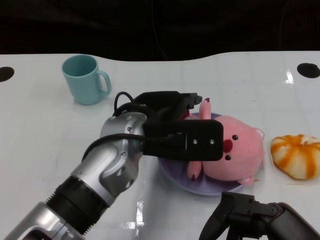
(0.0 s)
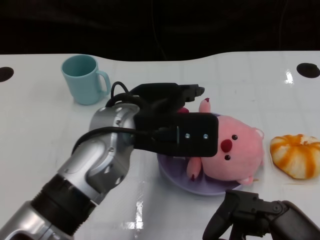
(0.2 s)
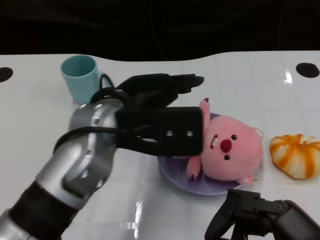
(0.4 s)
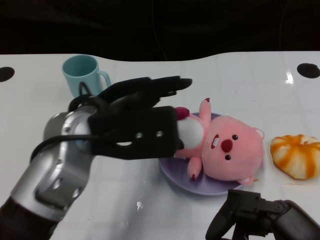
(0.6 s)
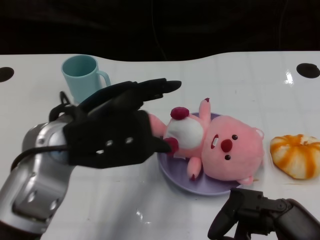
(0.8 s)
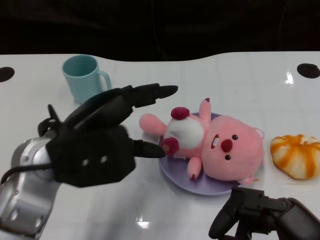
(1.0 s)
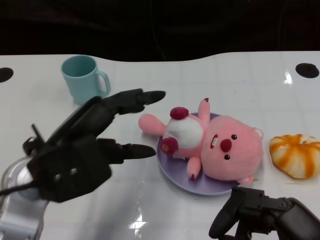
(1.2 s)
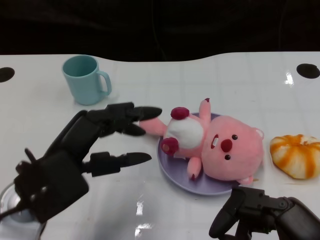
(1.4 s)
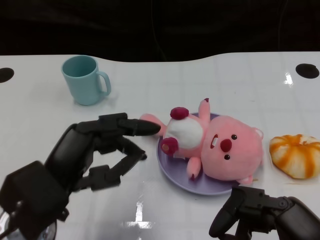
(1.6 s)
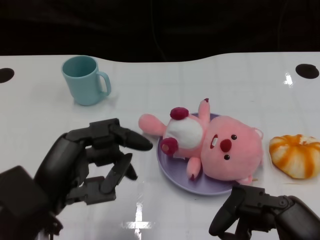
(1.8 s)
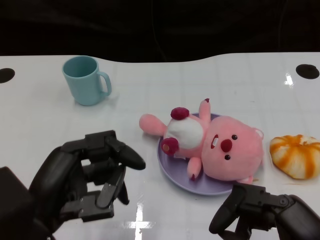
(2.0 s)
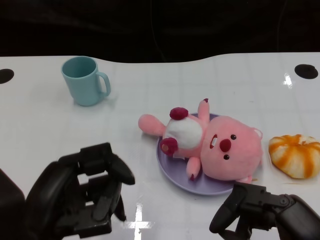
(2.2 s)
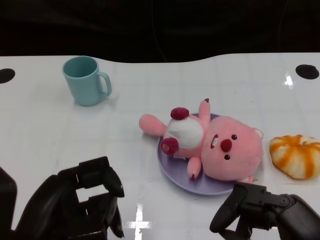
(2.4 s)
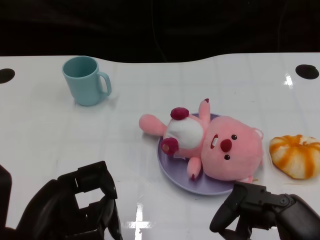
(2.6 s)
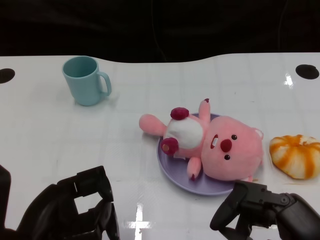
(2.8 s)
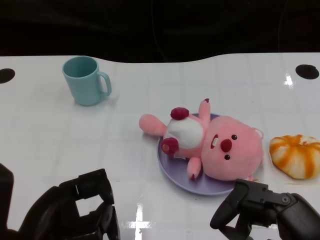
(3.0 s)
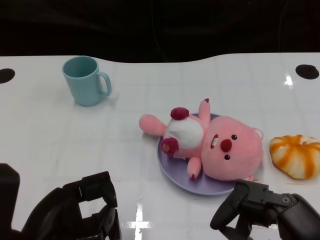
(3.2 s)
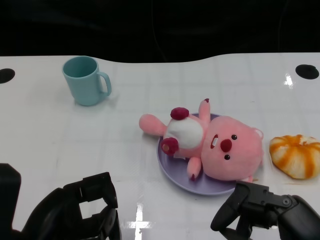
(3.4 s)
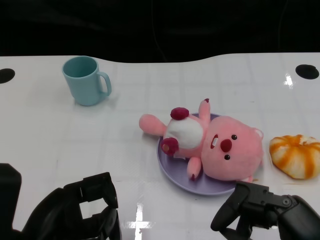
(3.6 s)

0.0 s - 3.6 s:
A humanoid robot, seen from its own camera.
Task of the whole recording: Pick up the doll on one side of the plate and place it into the plate.
0.0 s - 1.8 s: The left hand travels to the left and backward by approximately 15 cm.

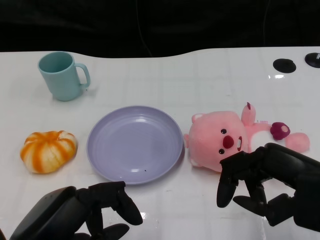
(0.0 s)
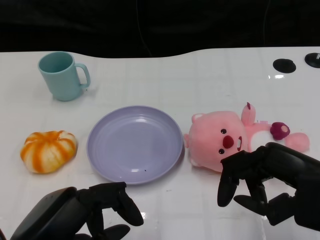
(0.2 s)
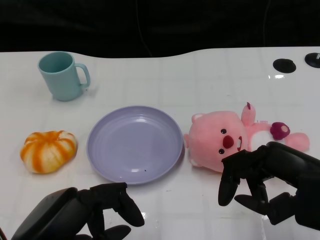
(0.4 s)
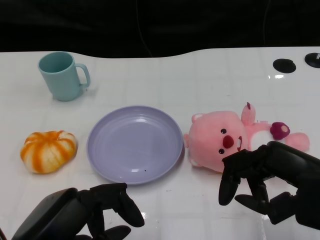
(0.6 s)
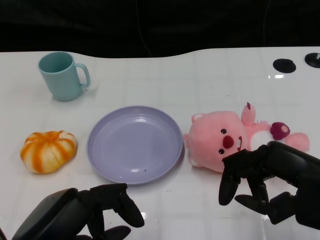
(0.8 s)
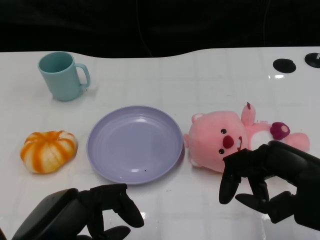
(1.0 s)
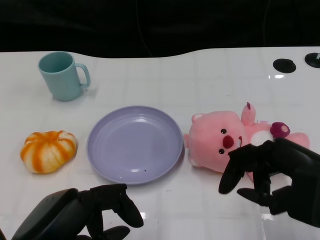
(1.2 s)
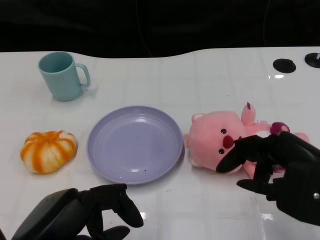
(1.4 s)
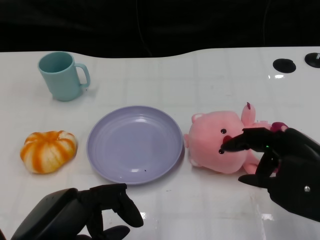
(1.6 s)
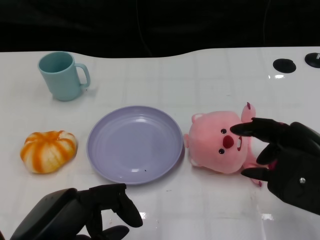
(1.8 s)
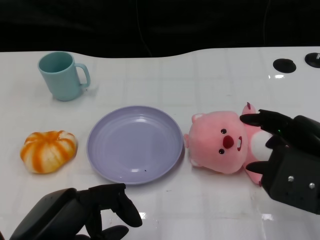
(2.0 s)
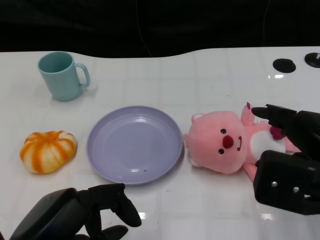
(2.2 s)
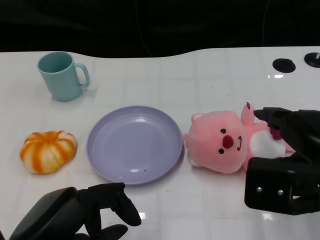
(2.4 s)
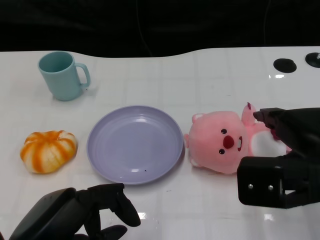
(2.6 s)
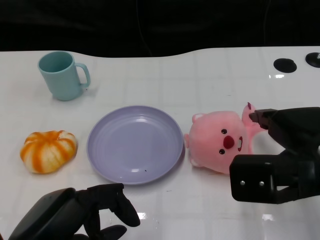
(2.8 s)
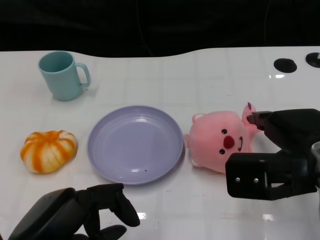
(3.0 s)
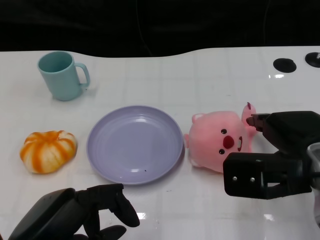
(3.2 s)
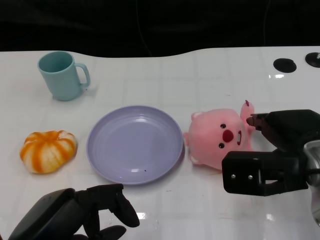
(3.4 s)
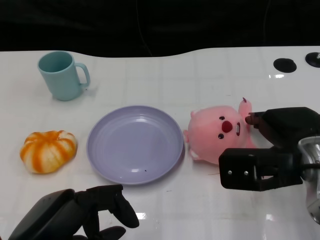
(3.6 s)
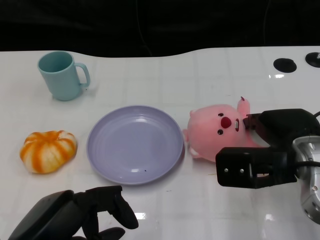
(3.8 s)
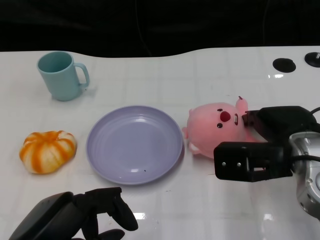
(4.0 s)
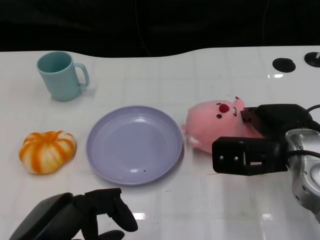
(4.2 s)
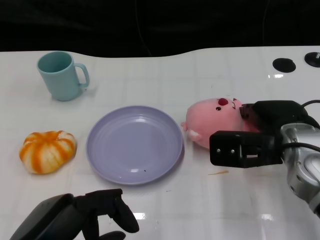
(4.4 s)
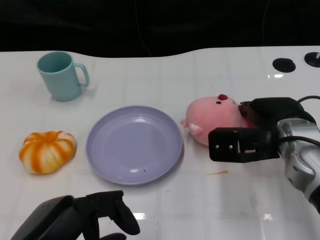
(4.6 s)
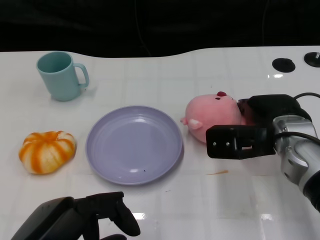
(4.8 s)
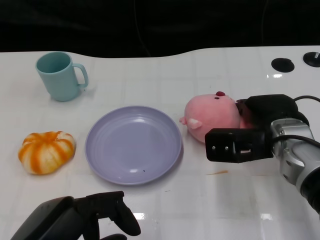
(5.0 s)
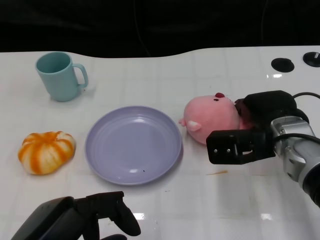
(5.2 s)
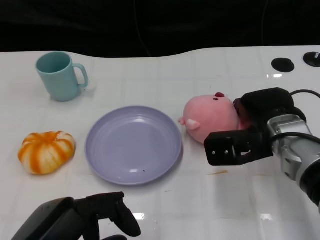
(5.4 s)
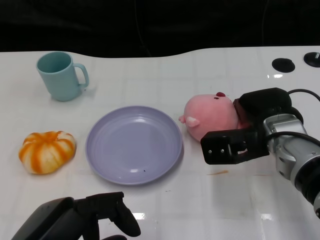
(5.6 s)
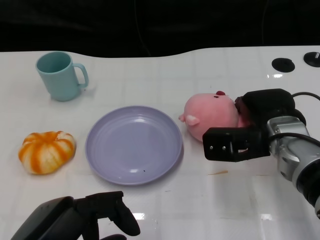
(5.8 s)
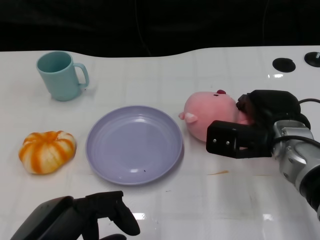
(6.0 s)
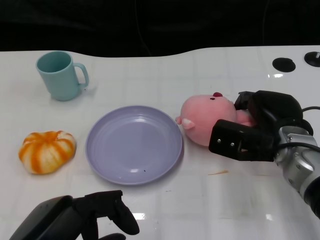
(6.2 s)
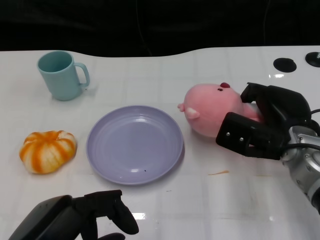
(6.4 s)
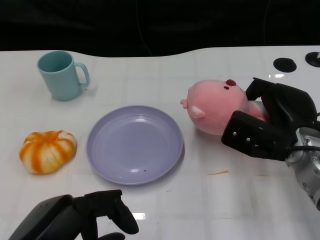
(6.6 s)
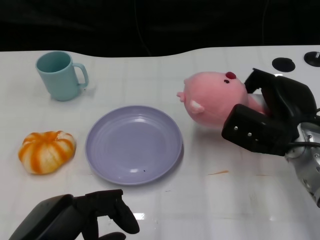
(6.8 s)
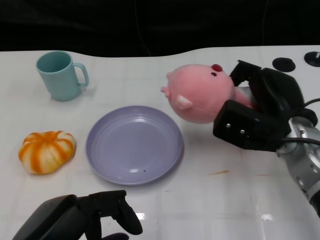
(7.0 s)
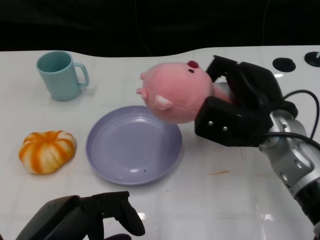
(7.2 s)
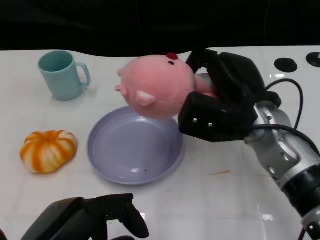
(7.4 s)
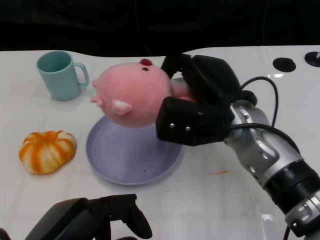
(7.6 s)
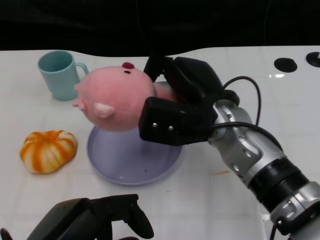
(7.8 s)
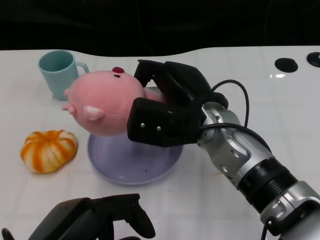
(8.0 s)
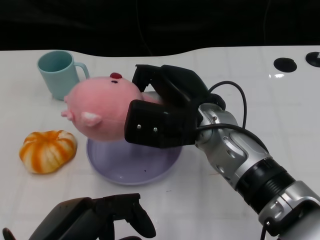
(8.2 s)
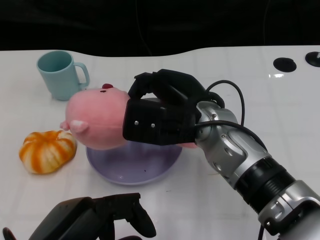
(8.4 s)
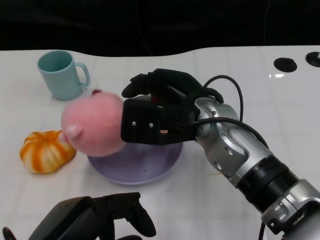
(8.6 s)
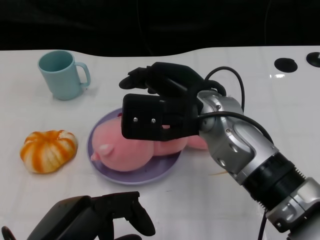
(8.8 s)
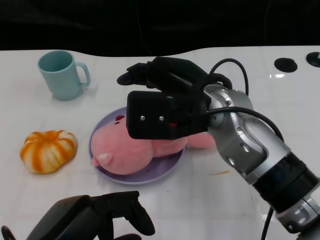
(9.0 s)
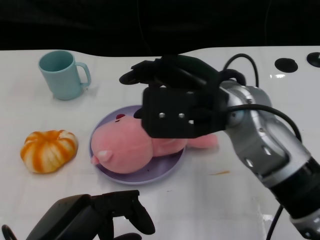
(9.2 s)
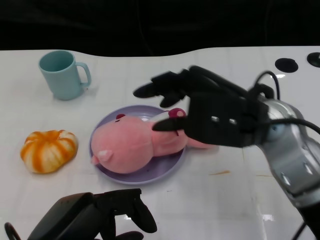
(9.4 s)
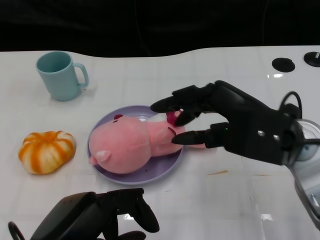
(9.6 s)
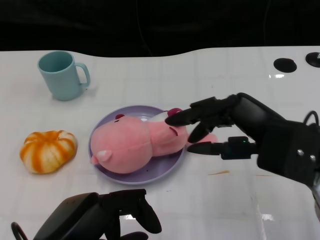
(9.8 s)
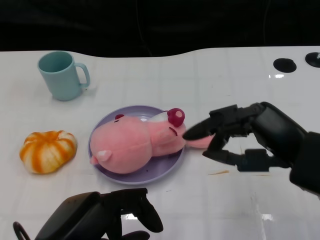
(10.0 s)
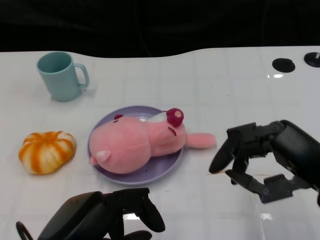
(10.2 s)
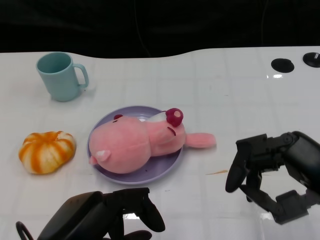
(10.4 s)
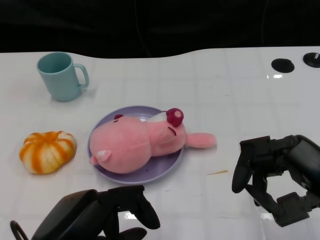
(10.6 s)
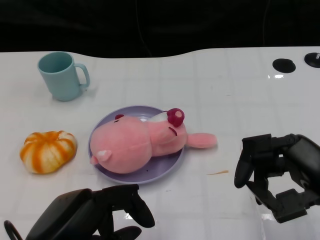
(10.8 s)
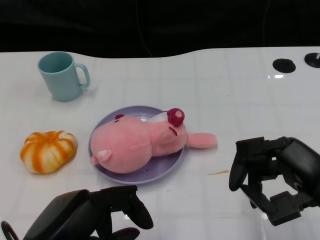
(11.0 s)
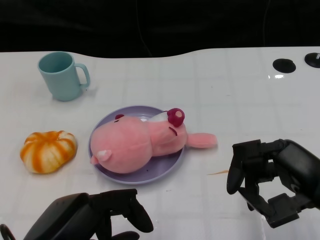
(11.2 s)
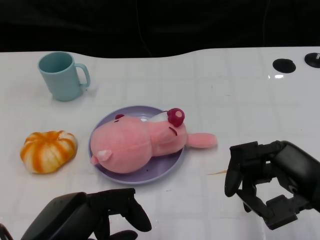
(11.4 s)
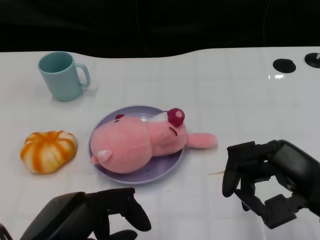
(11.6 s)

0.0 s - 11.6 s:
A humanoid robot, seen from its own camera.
Task of the whole recording: Pick up the doll on the other side of the plate and place it into the plate.
Step, 1.0 s - 7.2 s: Grasp the pink doll with the right gripper.
Step, 7.4 s - 9.2 s: Place the pink doll into the plate with the right gripper.
2.8 s - 4.4 s: The right hand is displaced forward and downward by roughly 10 cm.
4.4 s - 5.8 s: There are only small adjustments of the hands.
7.2 s - 8.8 s: The right hand is displaced to the left by approximately 10 cm.
8.8 s - 10.2 s: The right hand is displaced to the right and backward by about 20 cm.
10.2 s - 11.6 s: The hands make only small movements.

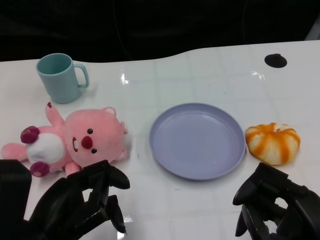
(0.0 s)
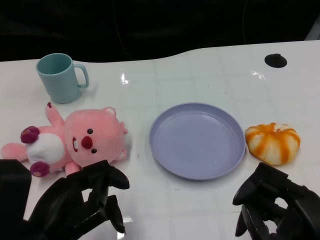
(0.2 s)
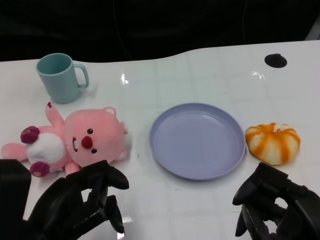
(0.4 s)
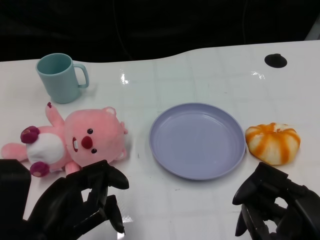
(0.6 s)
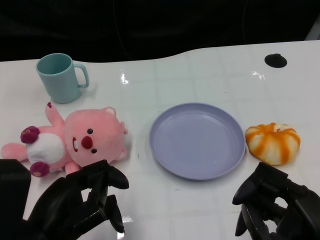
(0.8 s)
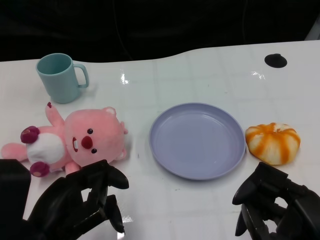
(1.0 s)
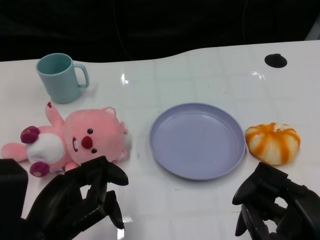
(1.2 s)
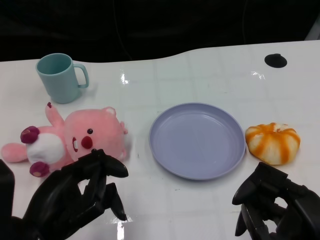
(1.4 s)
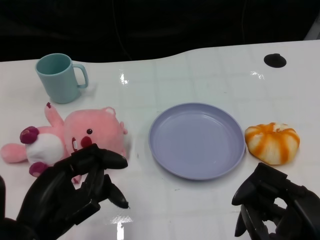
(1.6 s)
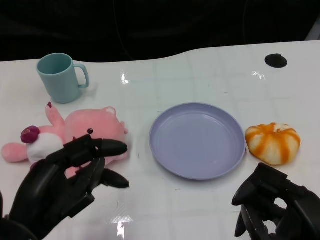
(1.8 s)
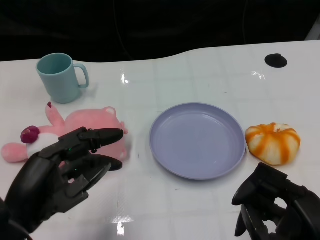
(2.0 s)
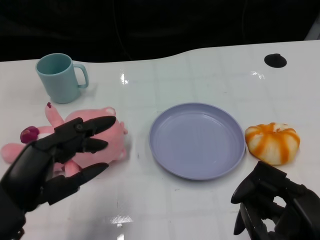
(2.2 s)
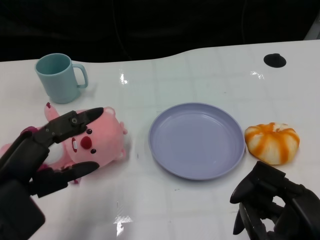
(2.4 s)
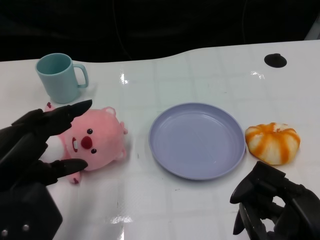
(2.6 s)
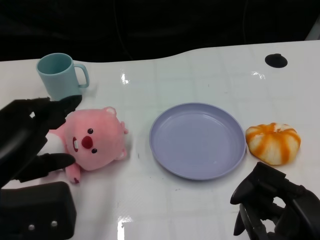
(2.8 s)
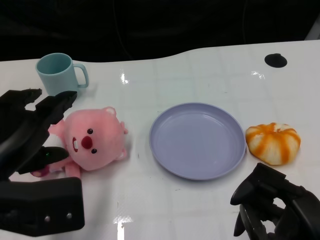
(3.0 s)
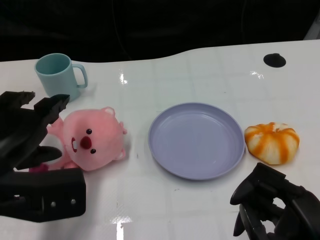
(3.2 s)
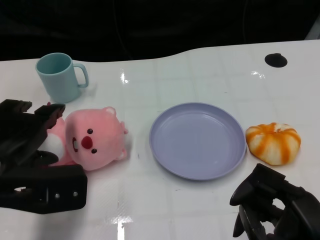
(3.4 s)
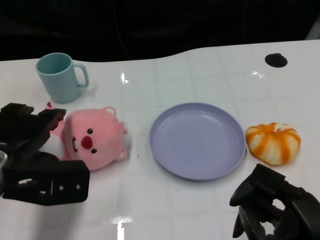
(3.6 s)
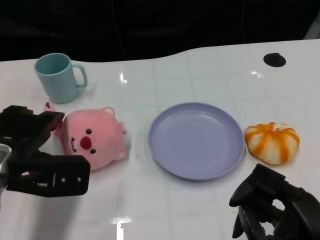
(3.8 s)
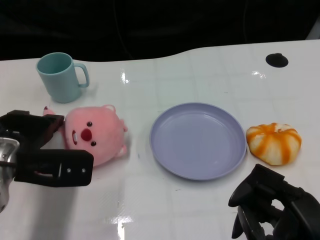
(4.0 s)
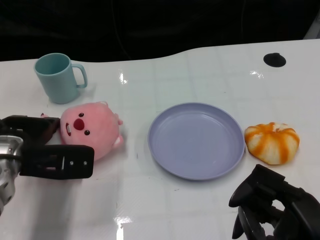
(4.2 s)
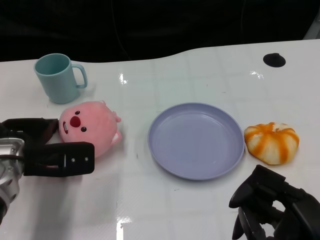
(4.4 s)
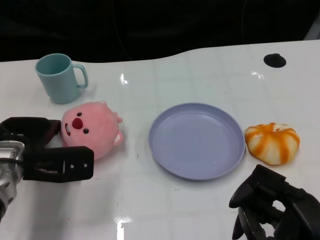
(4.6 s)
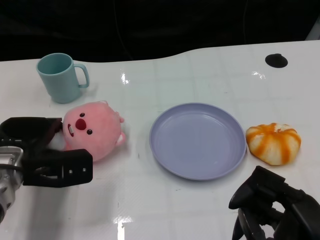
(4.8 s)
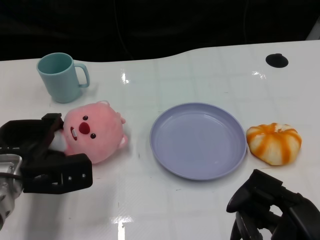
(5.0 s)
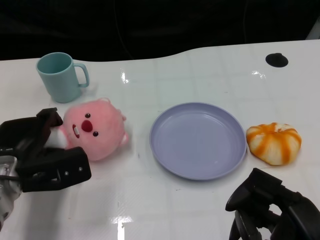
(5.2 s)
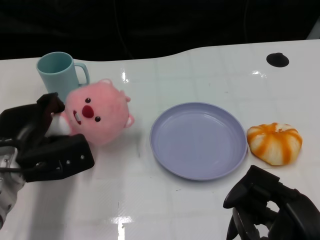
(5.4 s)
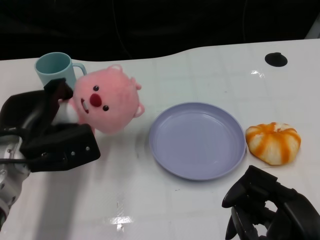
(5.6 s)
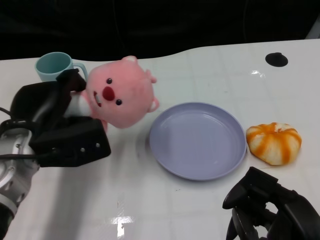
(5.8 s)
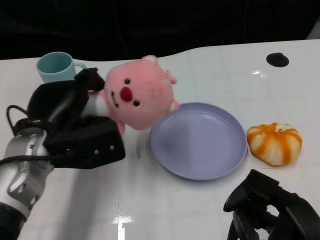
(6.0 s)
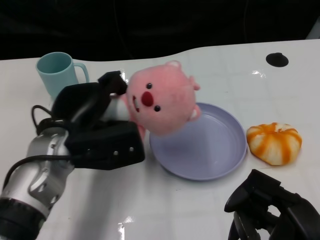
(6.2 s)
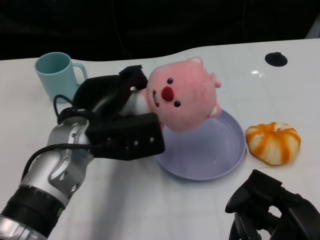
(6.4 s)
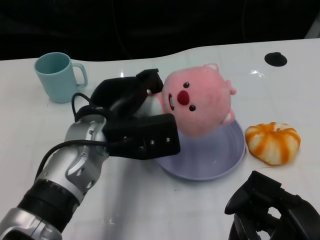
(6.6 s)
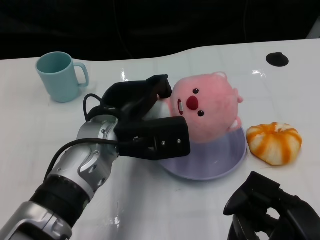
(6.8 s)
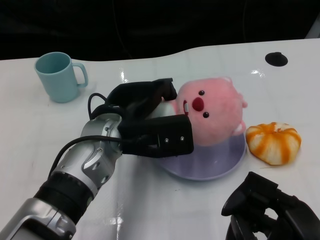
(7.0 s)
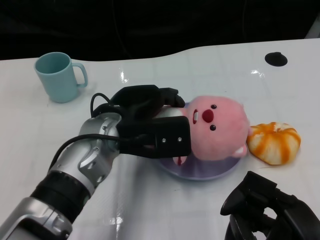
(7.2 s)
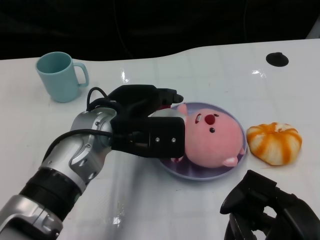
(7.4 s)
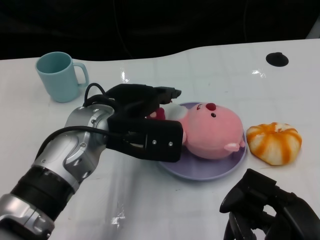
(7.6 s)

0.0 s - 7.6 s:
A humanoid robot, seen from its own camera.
Task of the whole recording: Pick up the doll on one side of the plate and place it into the plate.
Step, 1.4 s - 5.2 s: Grasp the pink doll with the left gripper.
1.6 s - 3.0 s: The left hand moves upward, about 5 cm.
3.0 s - 4.6 s: The left hand goes roughly 15 cm forward and downward.
4.6 s - 6.0 s: The left hand changes place by about 5 cm.
6.0 s - 7.6 s: The left hand travels to the right by some 10 cm.
